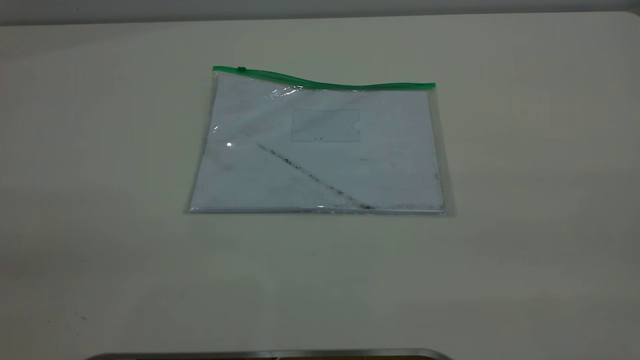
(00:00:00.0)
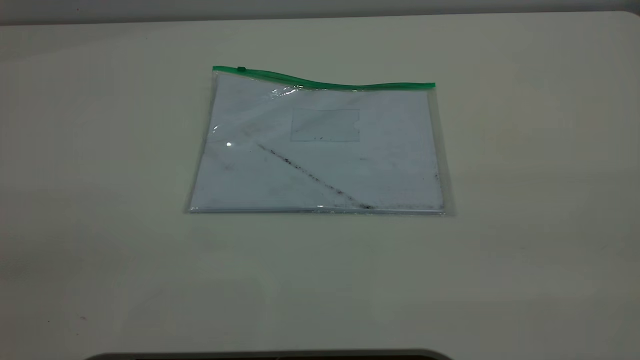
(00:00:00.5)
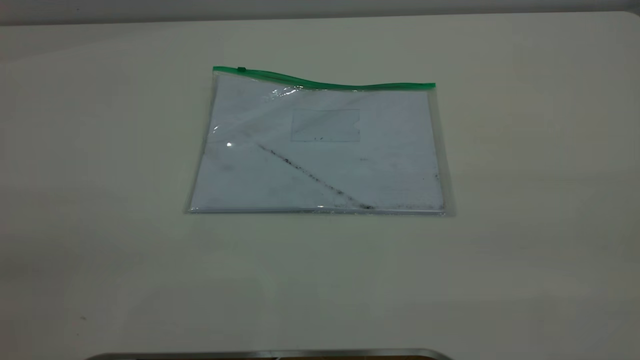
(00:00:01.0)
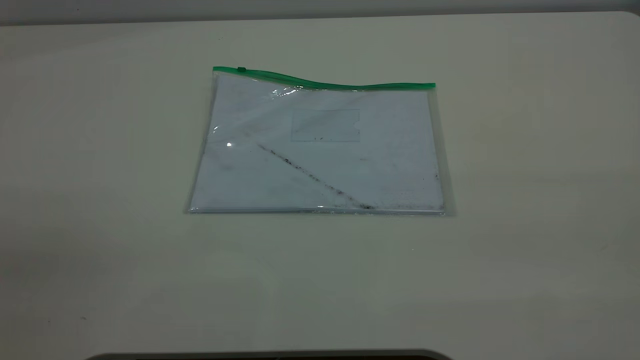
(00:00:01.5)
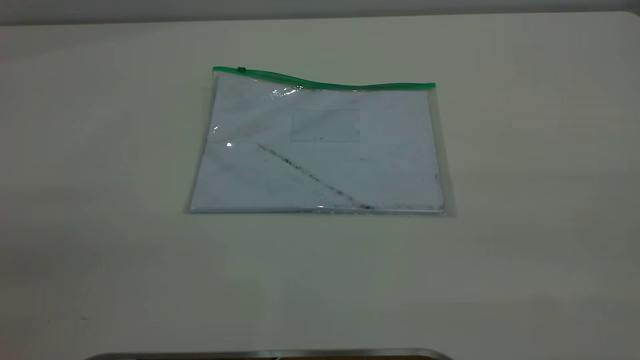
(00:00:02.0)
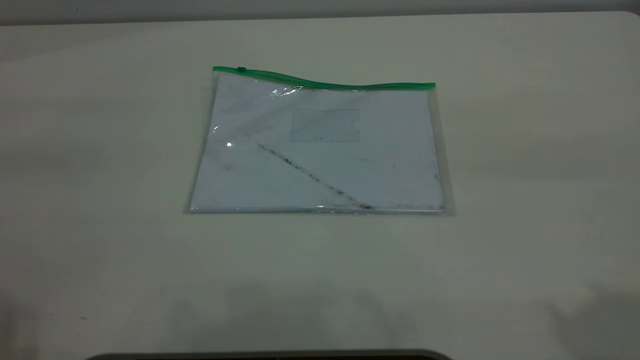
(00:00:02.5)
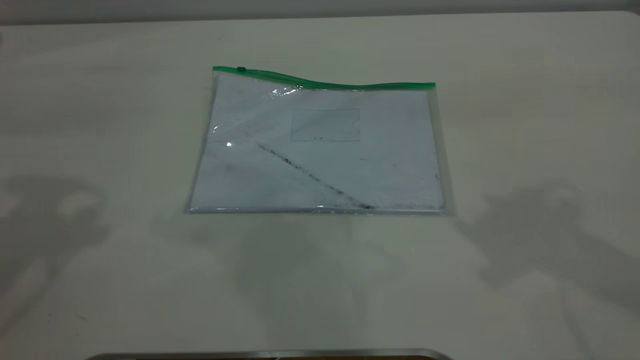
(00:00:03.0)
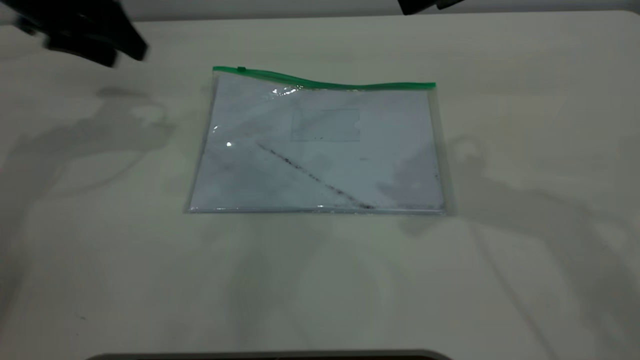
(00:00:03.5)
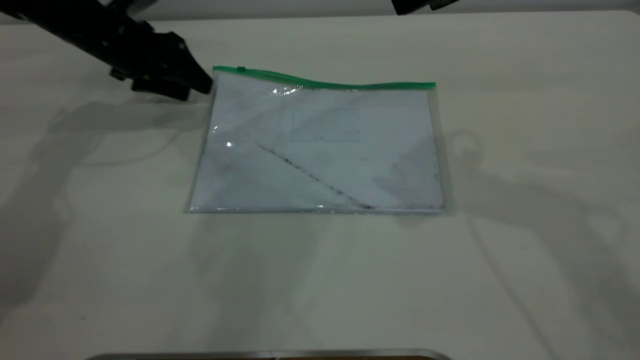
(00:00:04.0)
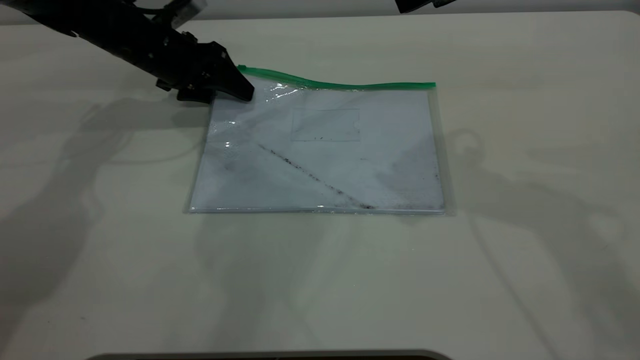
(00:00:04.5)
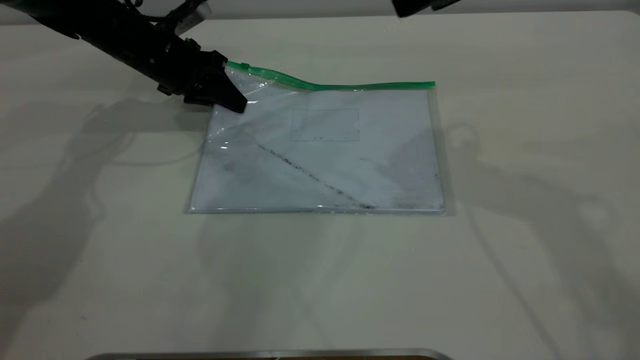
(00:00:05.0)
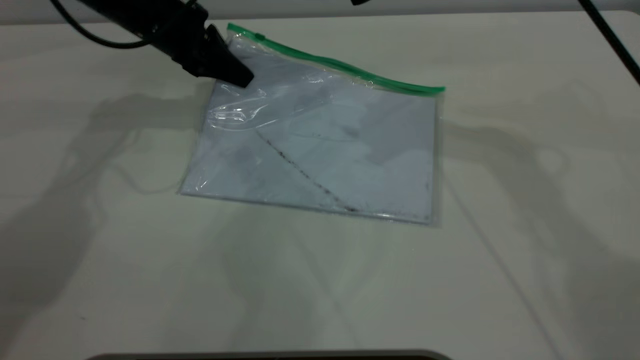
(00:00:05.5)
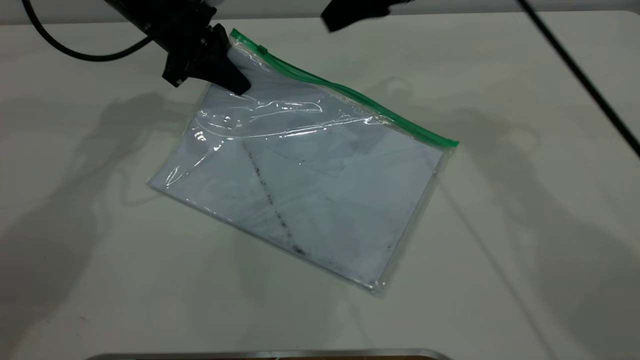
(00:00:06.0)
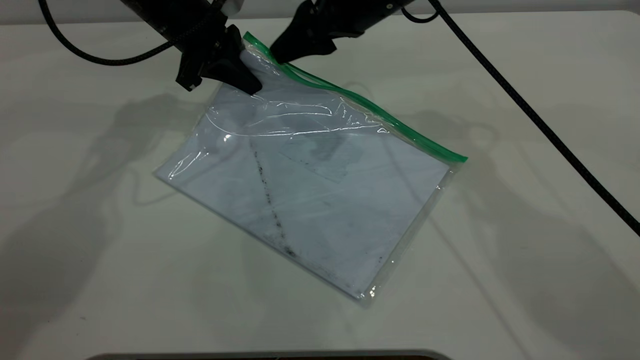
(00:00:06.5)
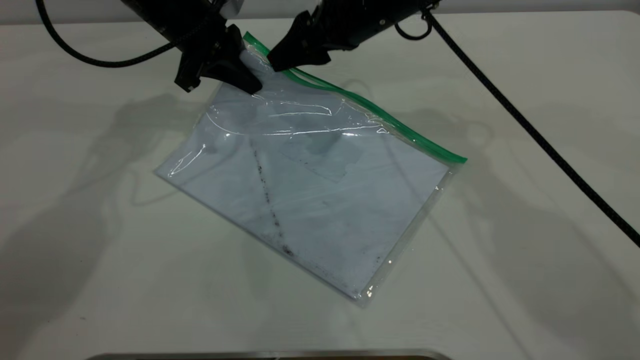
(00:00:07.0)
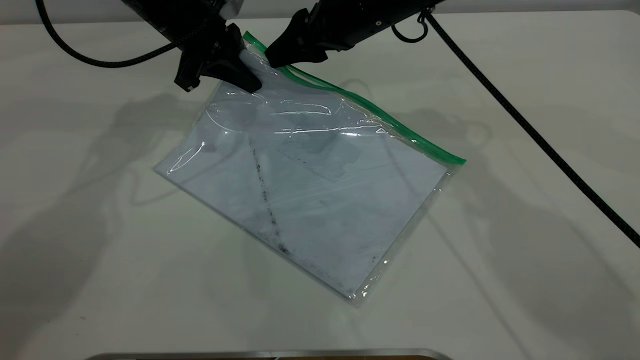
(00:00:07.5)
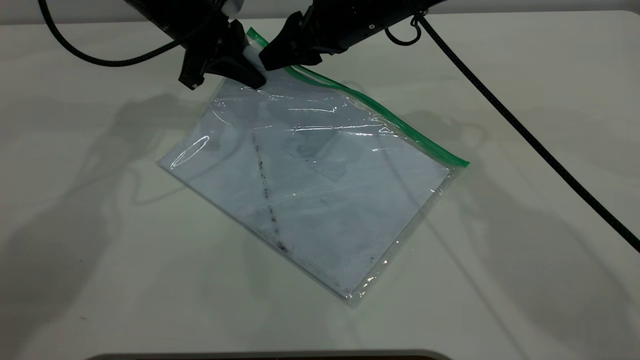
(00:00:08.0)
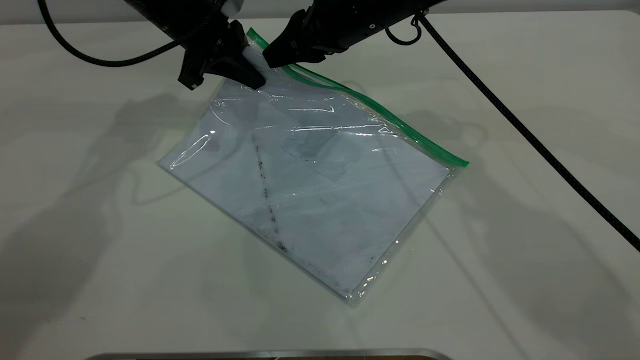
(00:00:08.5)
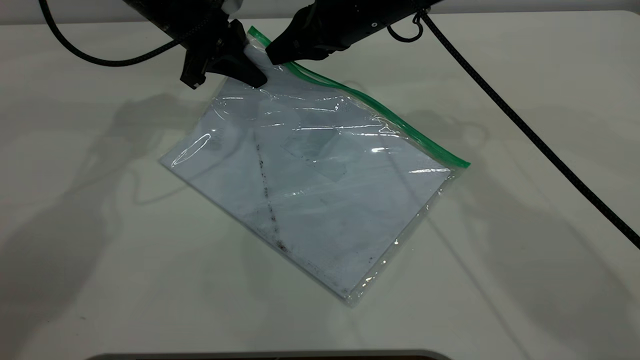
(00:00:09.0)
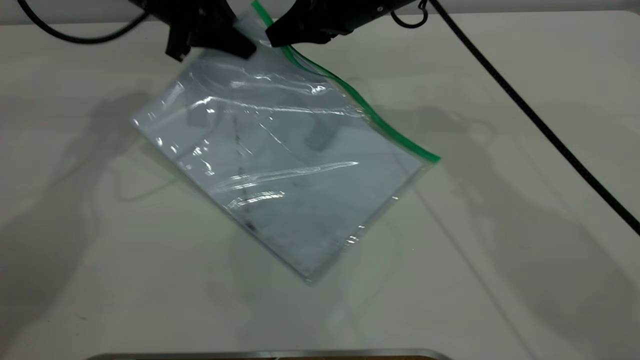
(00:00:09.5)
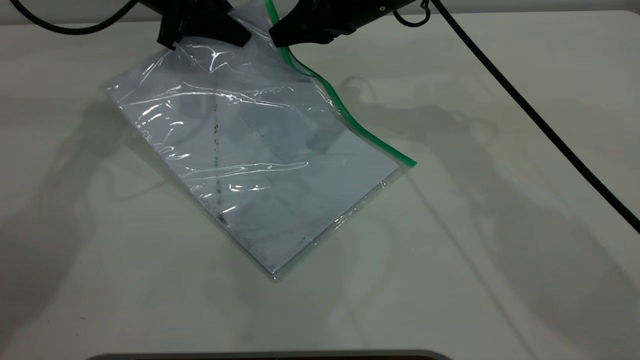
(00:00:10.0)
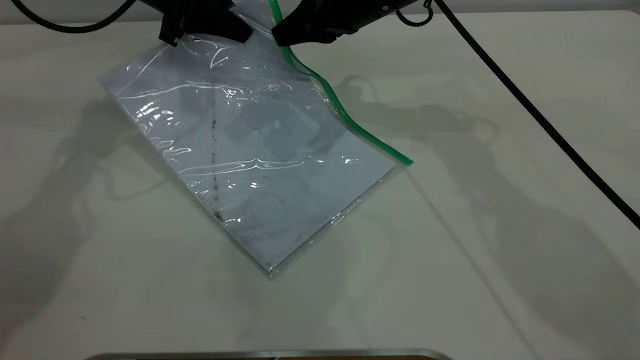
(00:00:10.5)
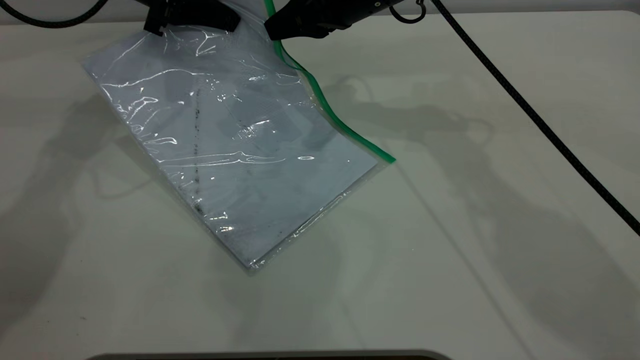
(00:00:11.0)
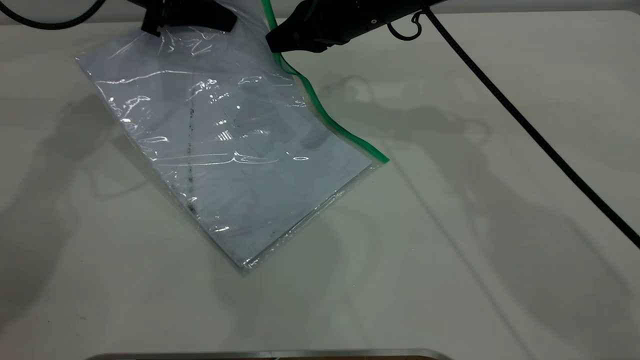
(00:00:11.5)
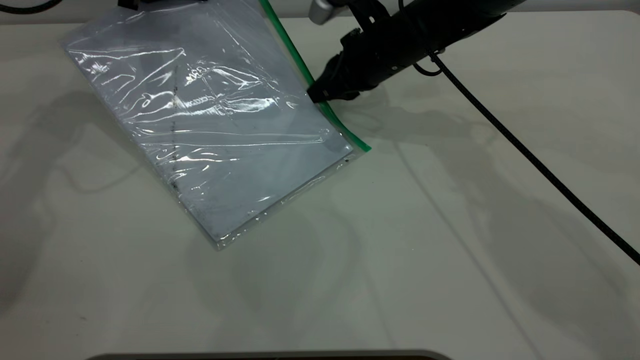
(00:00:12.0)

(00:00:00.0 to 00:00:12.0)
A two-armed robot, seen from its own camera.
Step, 00:00:00.0 - 00:00:05.0: Pick up the transparent plastic bag with the left gripper.
00:00:00.0 - 00:00:02.0: Both grippers stay about where they are.
00:00:02.0 - 00:00:04.0: The left gripper moves forward and downward, about 60 cm.
00:00:04.0 - 00:00:06.0: The left gripper shifts roughly 5 cm to the right, and closes, while the right gripper shifts about 15 cm forward, downward and to the left.
00:00:06.0 - 00:00:08.0: The right gripper moves to the left and downward, about 10 cm.
00:00:08.0 - 00:00:10.0: The right gripper closes up; the left gripper shifts by some 5 cm.
00:00:10.0 - 00:00:12.0: The left gripper goes approximately 5 cm to the left, while the right gripper moves downward, about 5 cm.

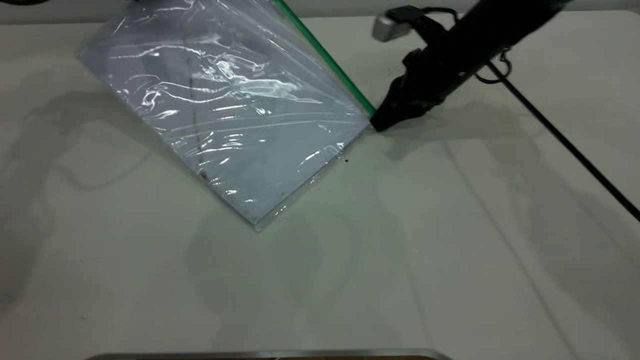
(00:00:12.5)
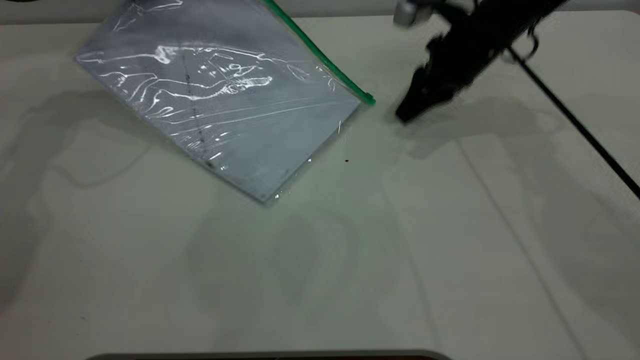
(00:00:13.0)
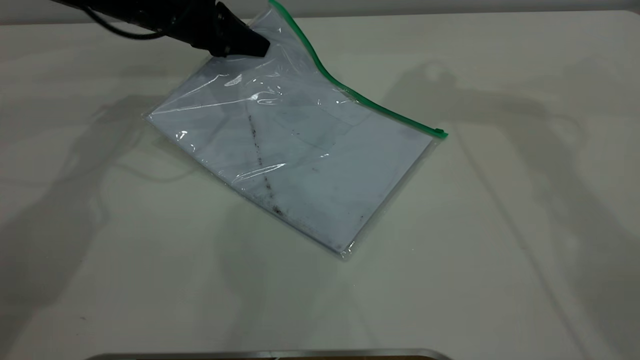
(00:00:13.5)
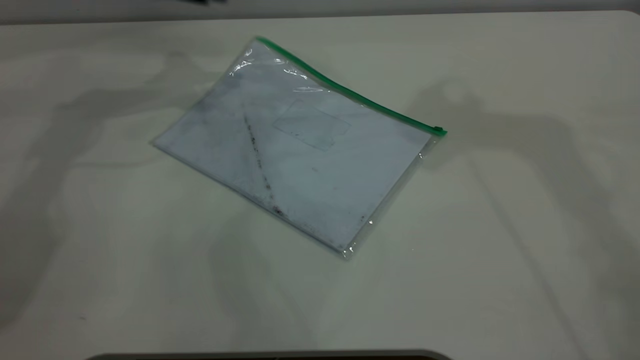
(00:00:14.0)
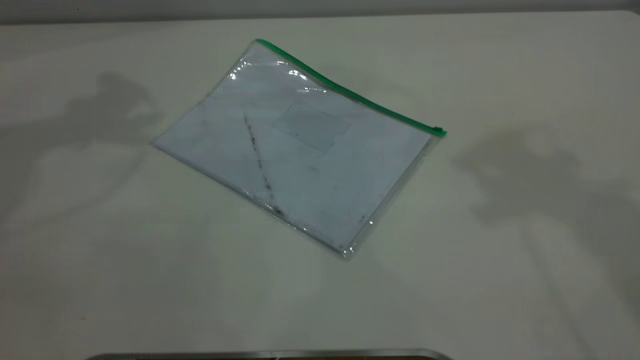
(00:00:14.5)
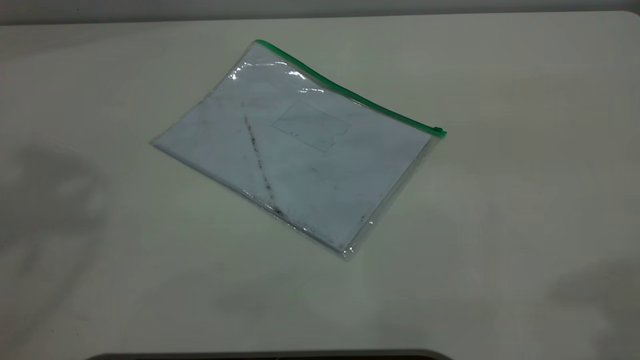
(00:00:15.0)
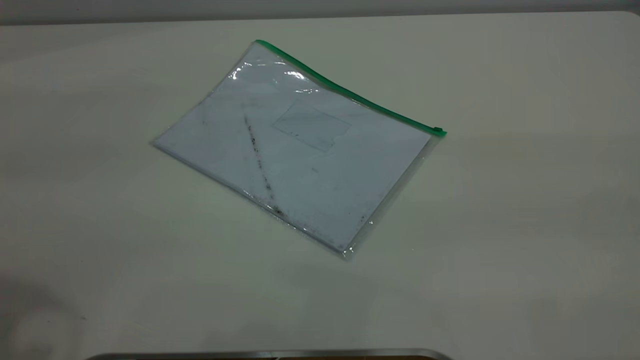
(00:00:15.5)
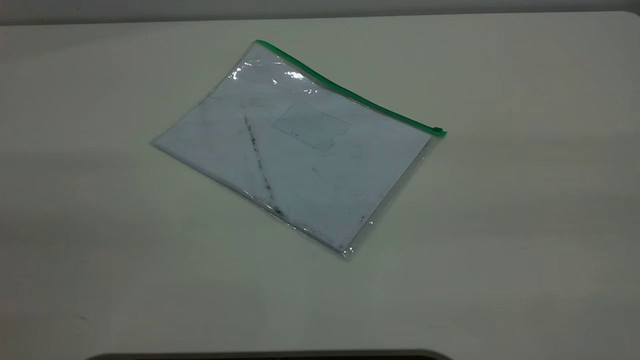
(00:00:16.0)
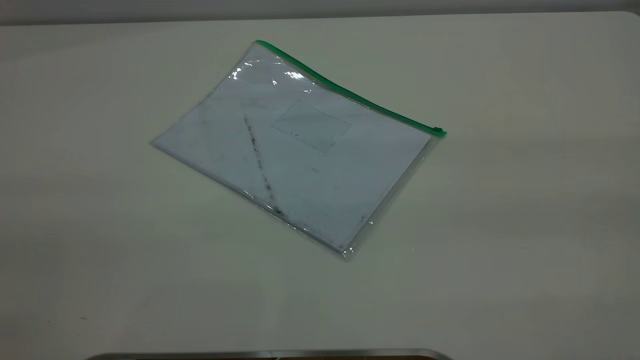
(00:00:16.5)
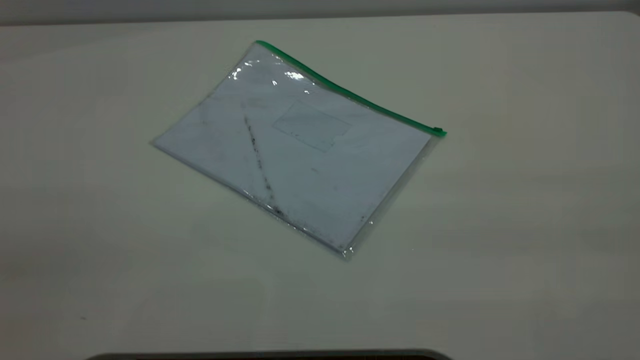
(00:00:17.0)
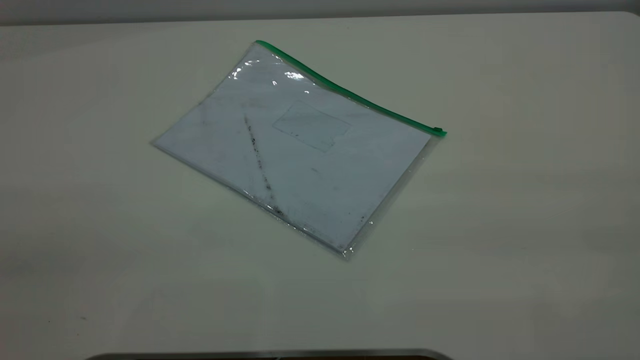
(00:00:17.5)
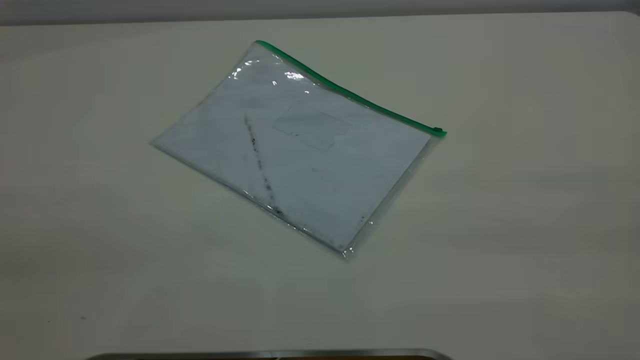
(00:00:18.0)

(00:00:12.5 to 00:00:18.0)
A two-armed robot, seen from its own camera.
00:00:12.5 - 00:00:14.5: The left gripper moves upward, about 25 cm, and opens. The right gripper travels upward and backward by roughly 50 cm, and opens up.
00:00:14.5 - 00:00:16.0: The left gripper goes some 35 cm backward. Meanwhile the right gripper heads backward and downward, covering about 25 cm.

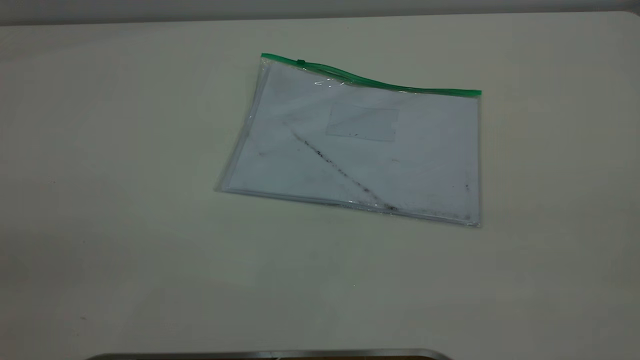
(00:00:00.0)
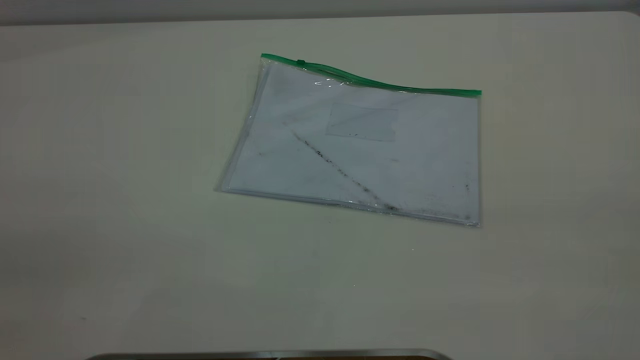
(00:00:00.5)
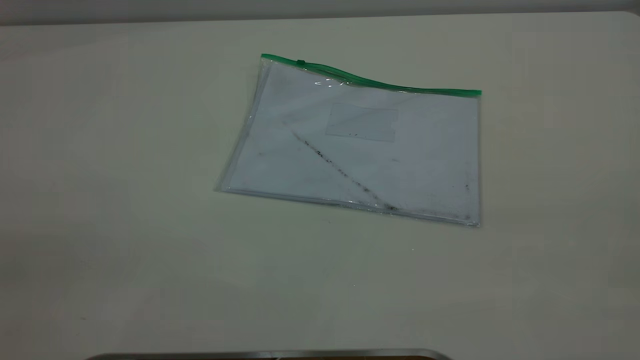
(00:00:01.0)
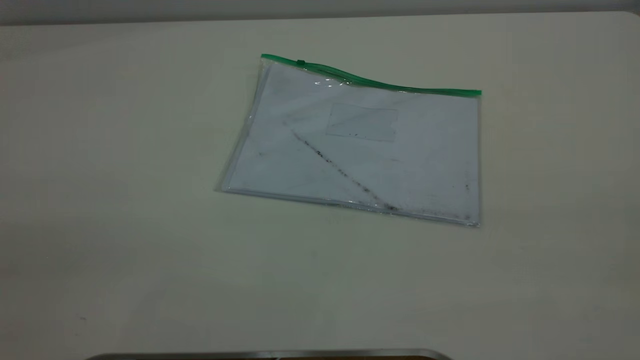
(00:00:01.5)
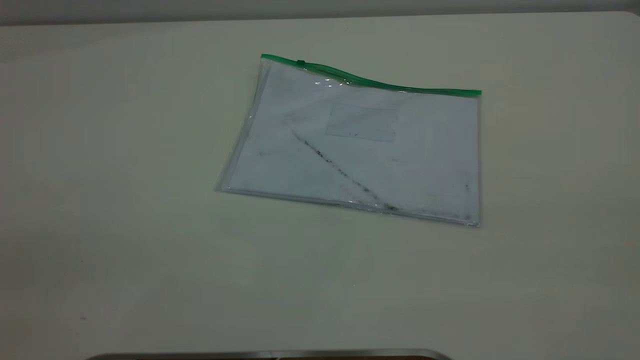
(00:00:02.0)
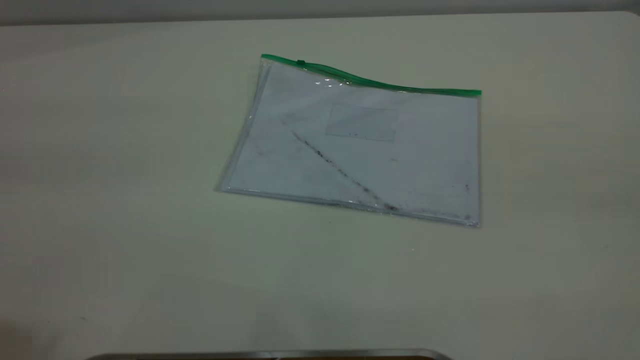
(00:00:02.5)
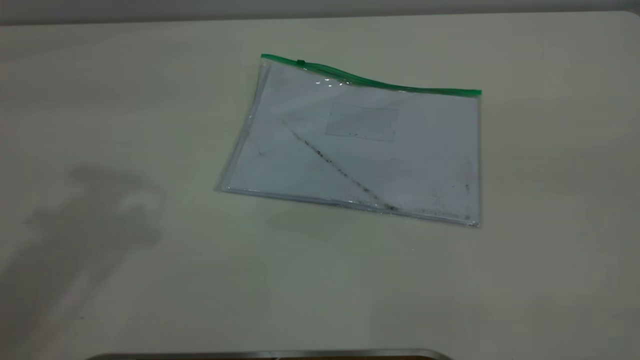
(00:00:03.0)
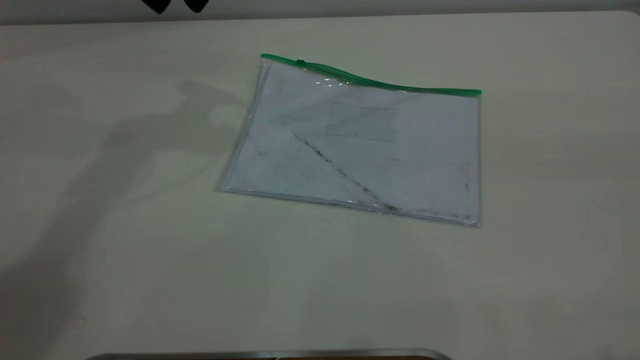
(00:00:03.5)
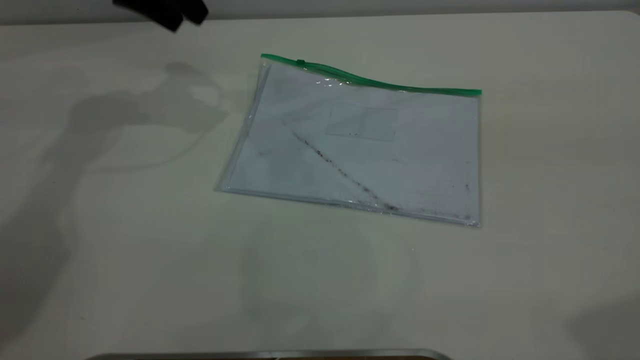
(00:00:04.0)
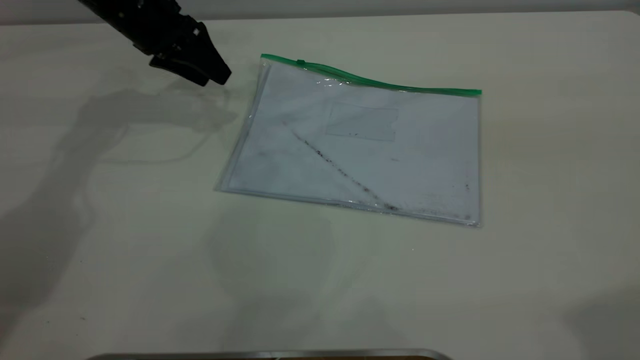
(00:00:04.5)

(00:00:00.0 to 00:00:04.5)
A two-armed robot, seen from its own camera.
00:00:00.0 - 00:00:02.0: Both grippers stay about where they are.
00:00:02.0 - 00:00:04.5: The left gripper heads forward and downward, covering some 60 cm.
